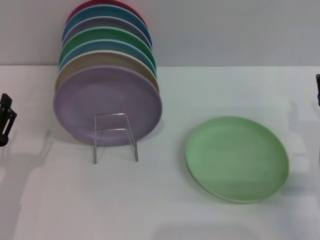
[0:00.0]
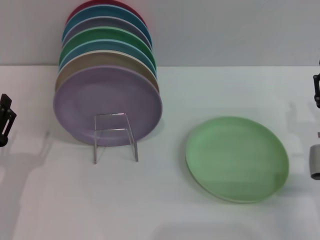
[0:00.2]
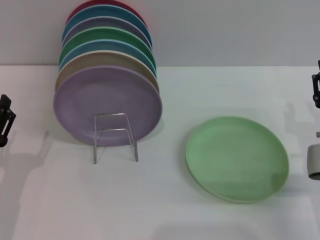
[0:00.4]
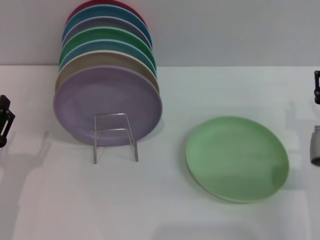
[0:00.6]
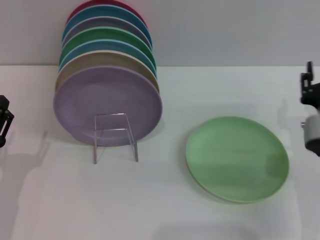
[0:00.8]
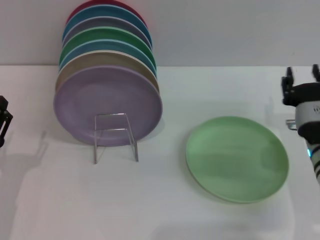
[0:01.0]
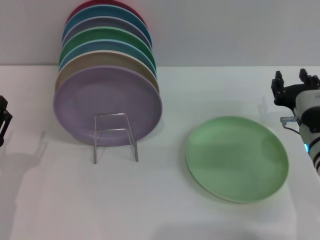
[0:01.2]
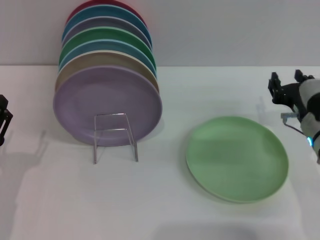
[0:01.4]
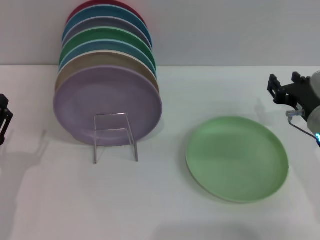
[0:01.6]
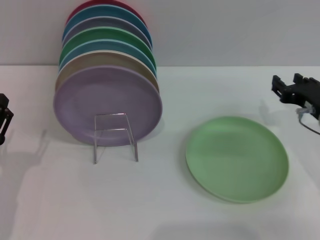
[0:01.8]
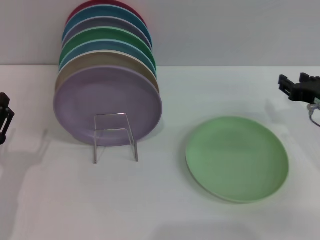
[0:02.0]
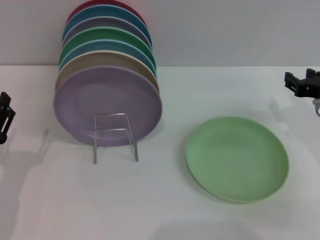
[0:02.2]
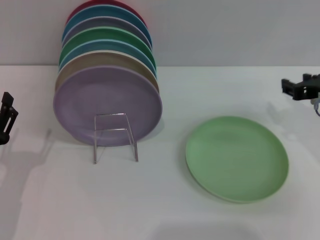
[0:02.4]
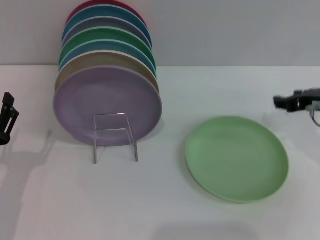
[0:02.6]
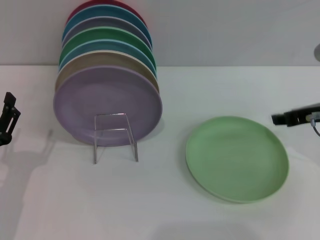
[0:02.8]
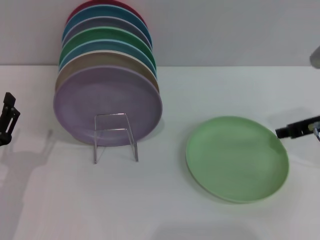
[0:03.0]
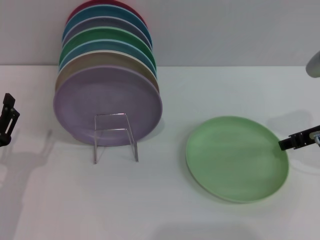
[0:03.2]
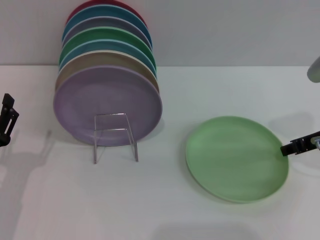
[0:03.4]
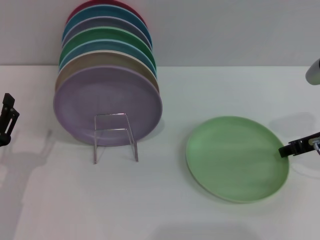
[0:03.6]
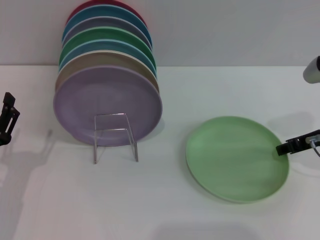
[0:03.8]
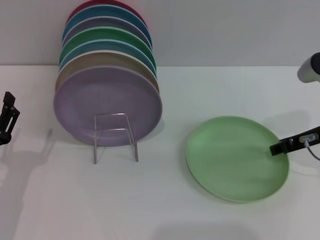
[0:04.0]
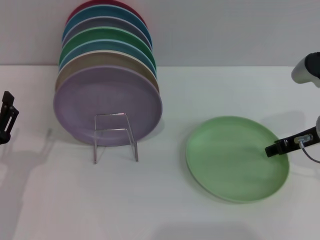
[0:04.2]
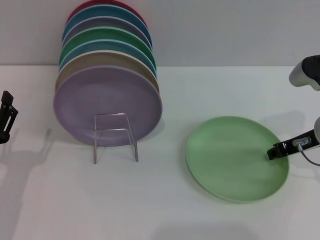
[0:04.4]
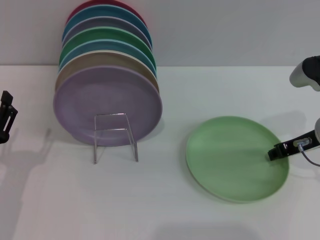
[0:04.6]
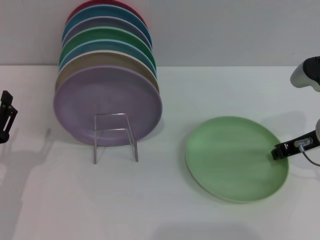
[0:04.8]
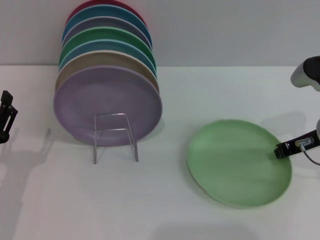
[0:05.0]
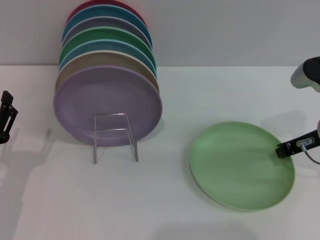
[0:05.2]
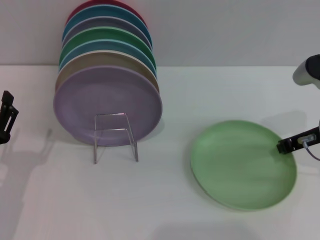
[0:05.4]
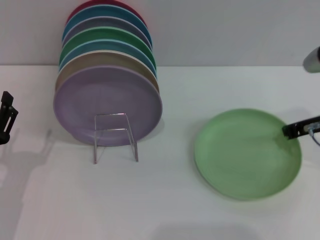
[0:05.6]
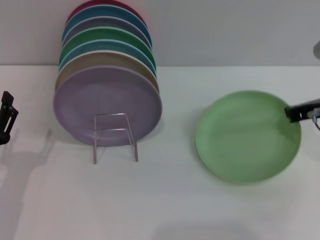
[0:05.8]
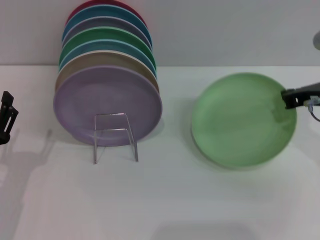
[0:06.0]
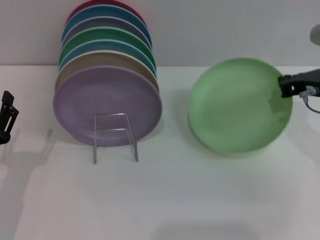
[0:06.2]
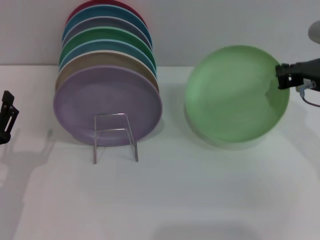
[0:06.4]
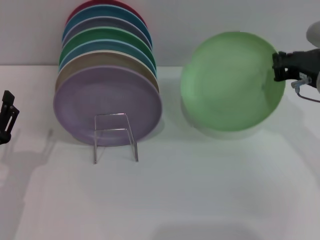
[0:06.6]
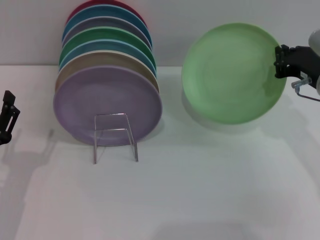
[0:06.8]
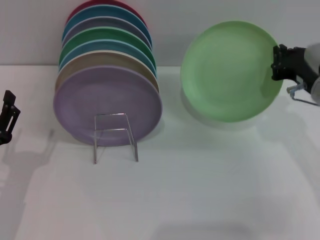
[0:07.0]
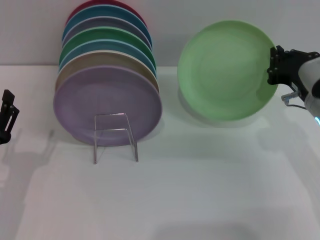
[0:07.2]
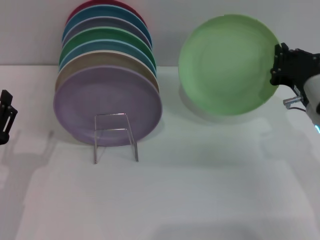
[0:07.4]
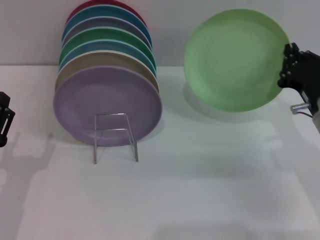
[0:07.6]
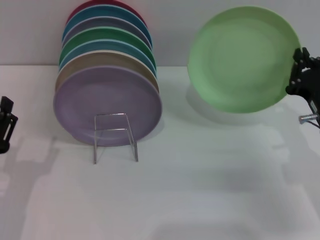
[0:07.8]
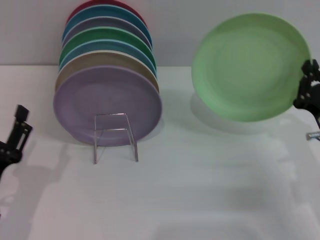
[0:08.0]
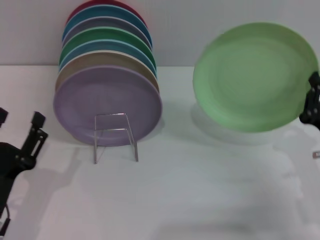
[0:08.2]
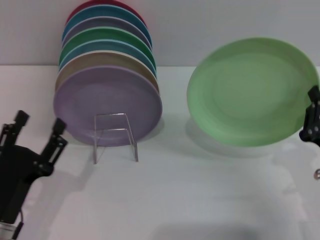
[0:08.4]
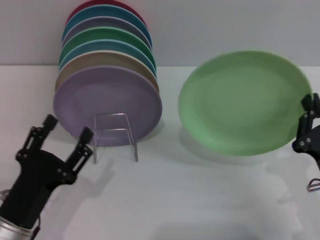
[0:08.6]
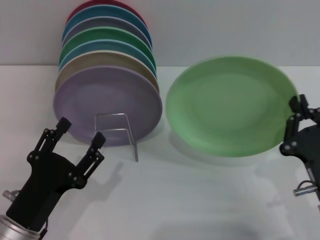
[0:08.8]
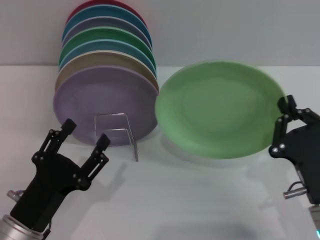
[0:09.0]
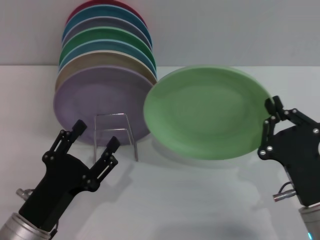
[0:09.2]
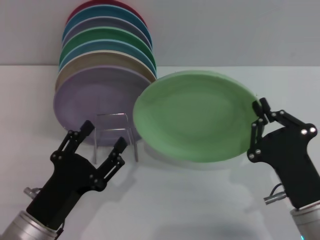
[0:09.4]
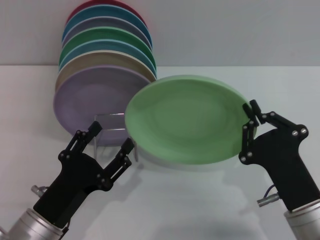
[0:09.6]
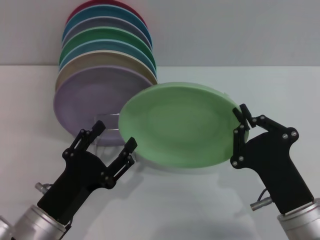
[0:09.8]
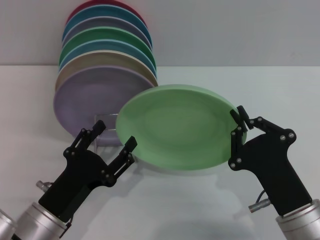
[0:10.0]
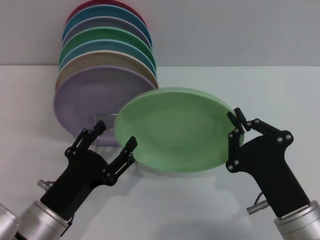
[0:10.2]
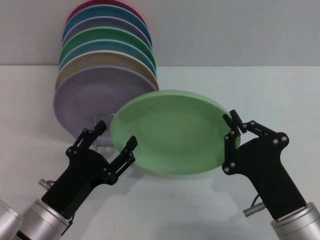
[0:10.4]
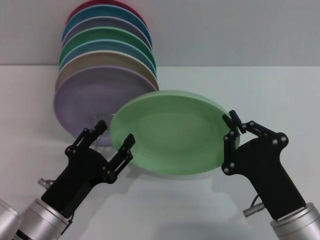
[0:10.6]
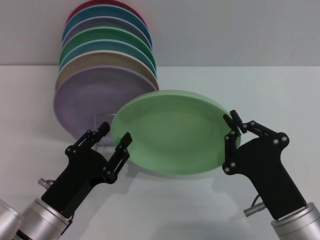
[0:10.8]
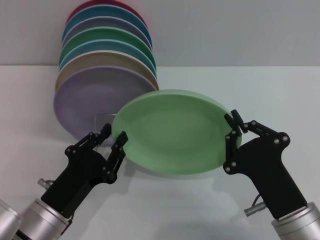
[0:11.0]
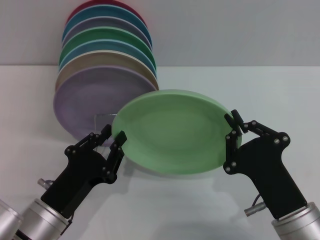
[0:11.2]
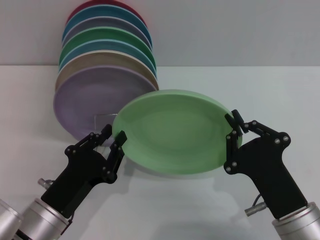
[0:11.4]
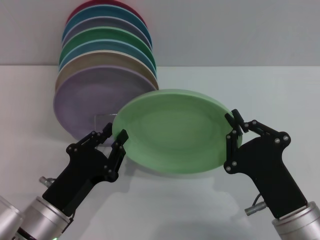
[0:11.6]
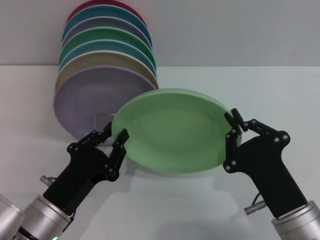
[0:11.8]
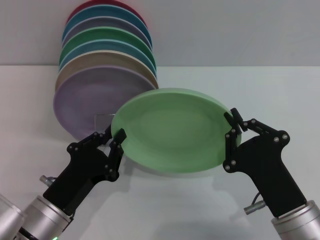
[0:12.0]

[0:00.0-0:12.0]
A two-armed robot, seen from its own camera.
Task of the whole recording: Grip the plate with one hand, pass it to the other, then set it on the shelf.
Step, 0:00.0 to 0:06.6: Pick up the plate with the right gripper.
0:00.0 to 0:01.6: The right gripper shifts by about 5 cm.
0:01.6 to 0:03.0: The right gripper shifts roughly 5 cm upward.
0:03.0 to 0:04.4: The grippers make only small movements.
0:04.4 to 0:06.0: The right gripper closes up.
0:06.0 to 0:07.6: The right gripper shifts roughly 10 cm downward.
0:07.6 to 0:09.0: The left gripper shifts approximately 5 cm to the right; the right gripper heads backward, covering roughly 15 cm.
0:10.4 to 0:12.0: The left gripper closes up.

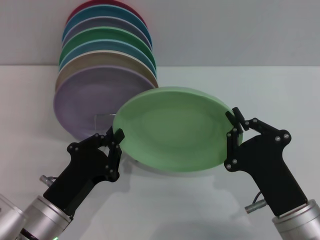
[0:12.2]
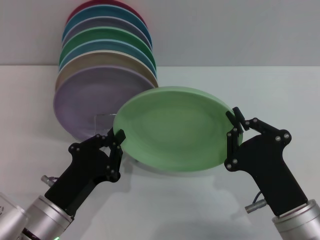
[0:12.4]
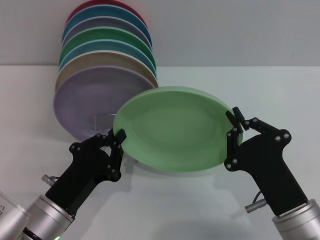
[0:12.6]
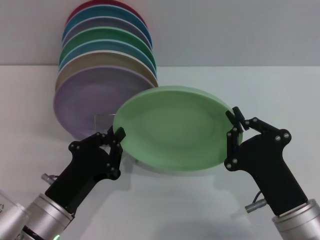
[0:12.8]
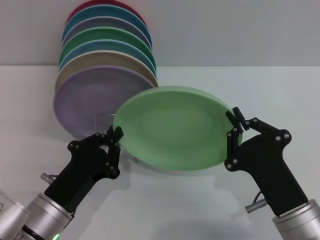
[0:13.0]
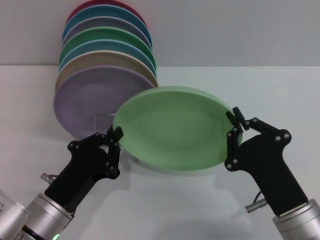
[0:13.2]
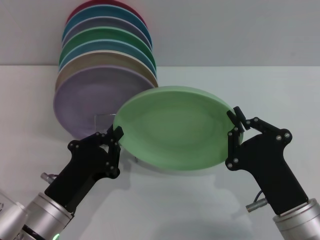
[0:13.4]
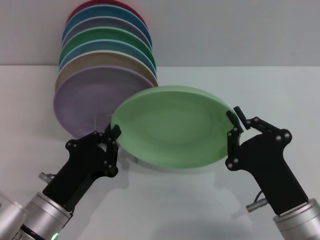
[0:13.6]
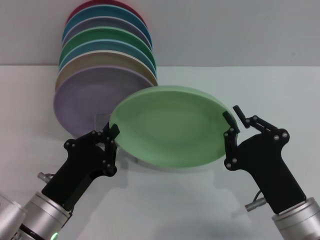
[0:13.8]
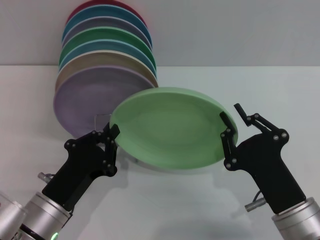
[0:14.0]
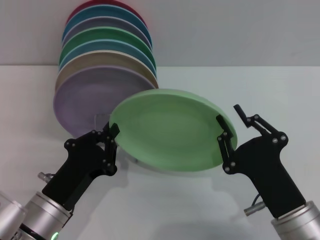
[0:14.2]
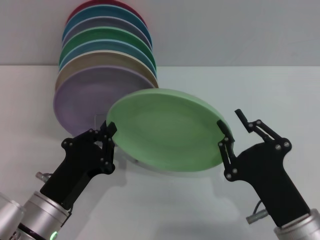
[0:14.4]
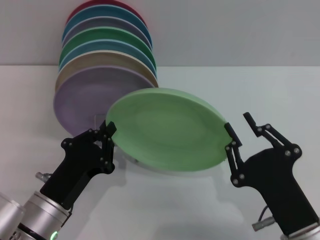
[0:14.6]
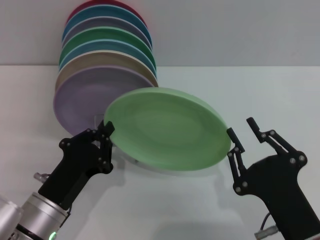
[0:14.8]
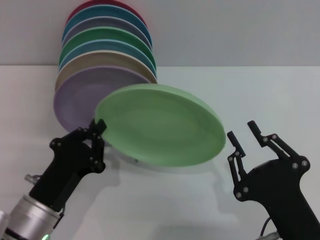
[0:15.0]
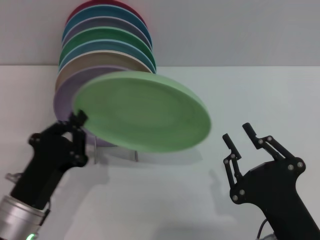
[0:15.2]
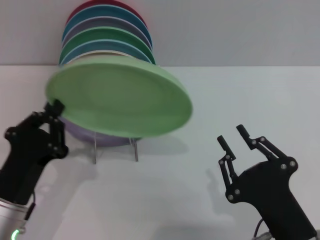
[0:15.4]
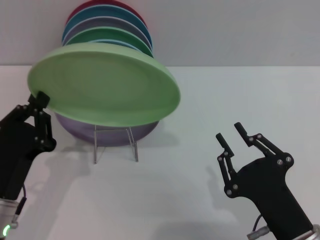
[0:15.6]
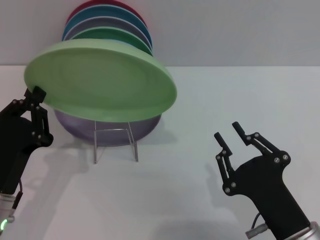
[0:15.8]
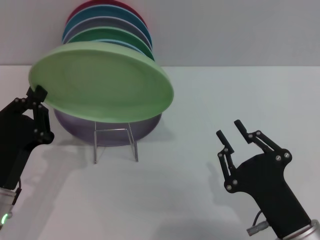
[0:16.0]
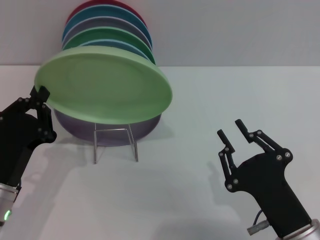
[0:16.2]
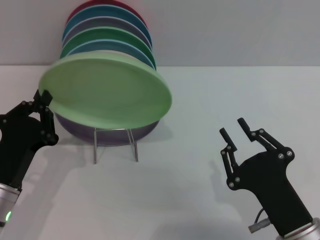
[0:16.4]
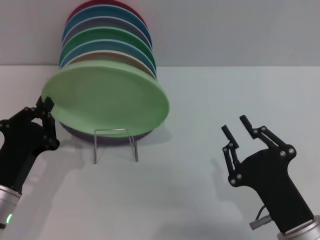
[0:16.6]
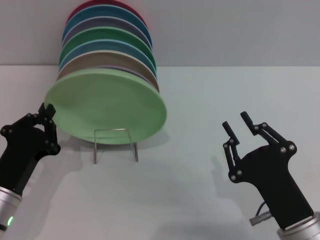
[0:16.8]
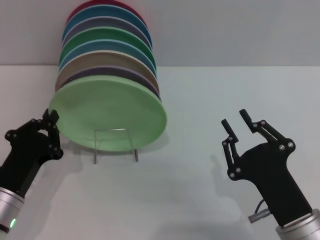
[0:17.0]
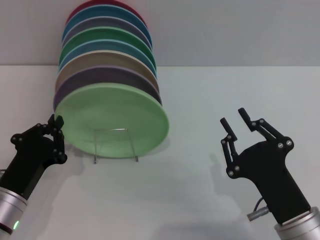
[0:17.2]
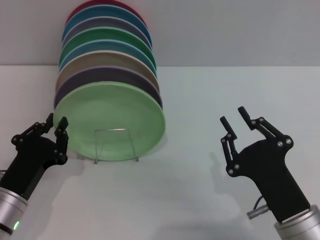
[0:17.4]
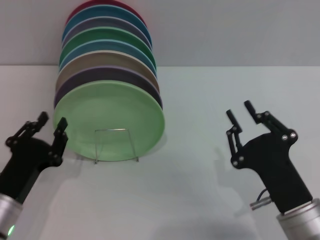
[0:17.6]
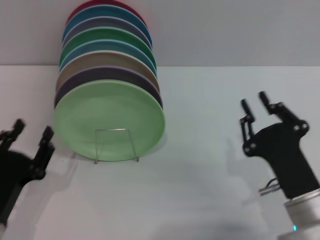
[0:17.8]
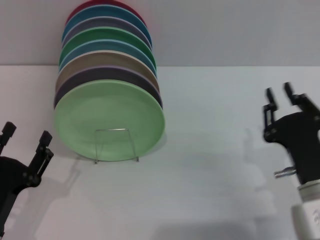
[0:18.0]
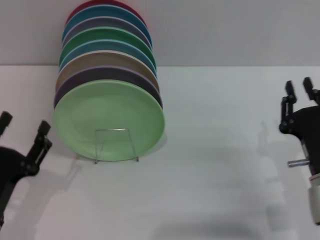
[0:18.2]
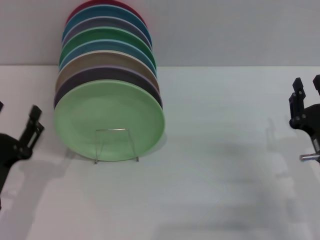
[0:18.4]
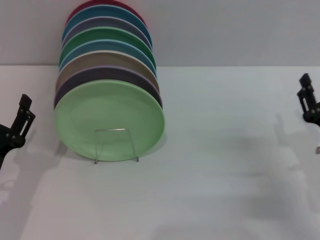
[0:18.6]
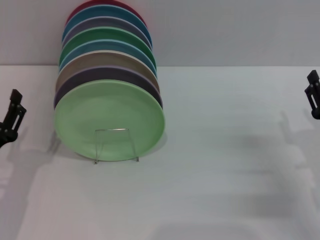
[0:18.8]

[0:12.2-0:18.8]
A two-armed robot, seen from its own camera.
Task of the whole recording: Grip the plate with one hand, pass it to the other, then set it on the shelf.
Step, 0:12.2 to 0:15.0: Pass the plate from the right gripper to the left gripper.
Step, 0:15.2 to 0:18.2: Place the plate on the shelf with the left gripper.
0:12.2 to 0:13.8: Neither gripper changes place.
0:13.8 to 0:15.4: The right gripper opens its fingers.
0:15.4 to 0:17.2: The grippers make only small movements.
0:17.2 to 0:18.8: The left gripper opens its fingers. The right gripper is displaced to the right and forward by about 15 cm, and opens its fingers.
